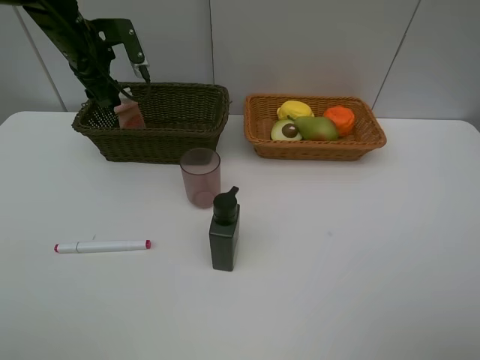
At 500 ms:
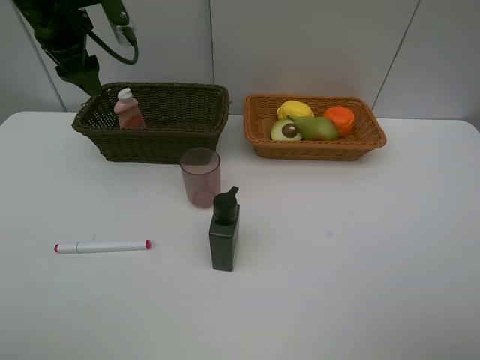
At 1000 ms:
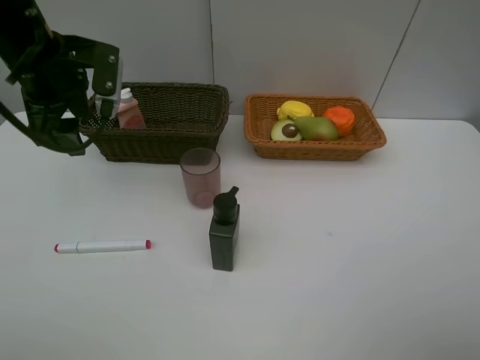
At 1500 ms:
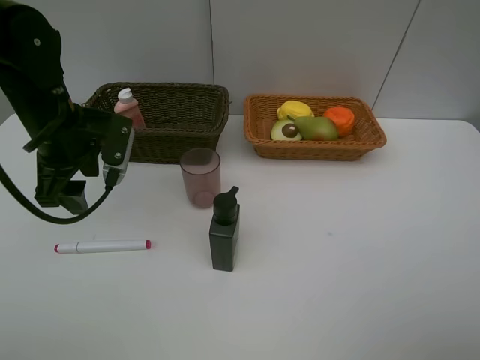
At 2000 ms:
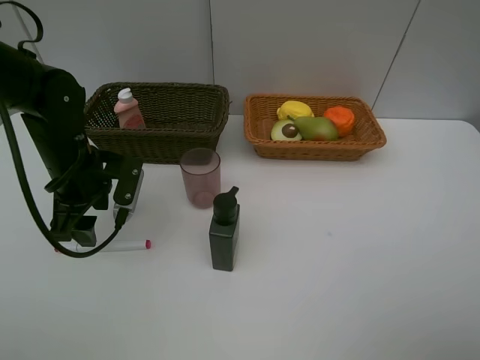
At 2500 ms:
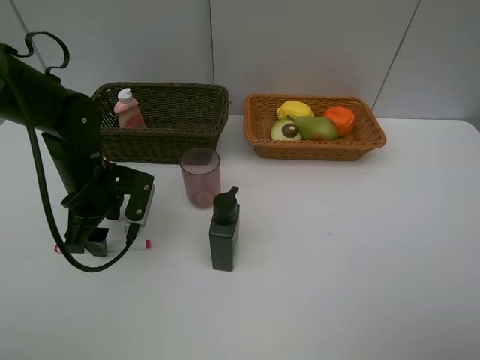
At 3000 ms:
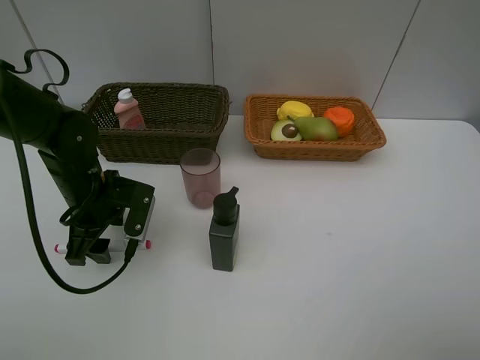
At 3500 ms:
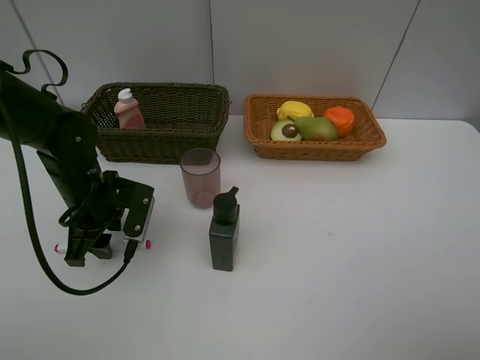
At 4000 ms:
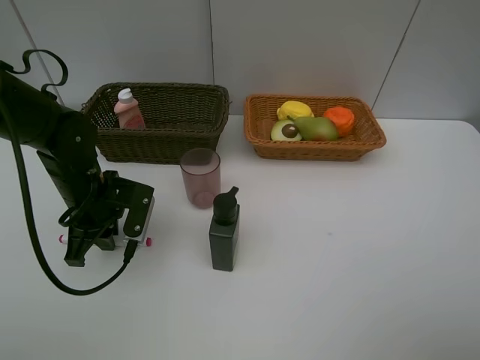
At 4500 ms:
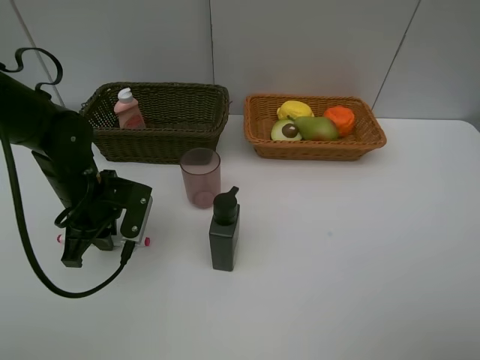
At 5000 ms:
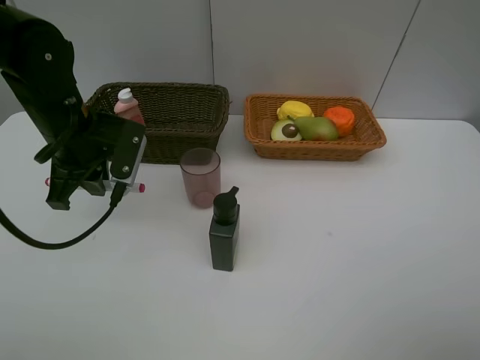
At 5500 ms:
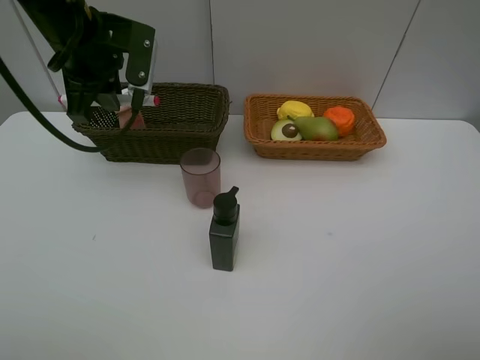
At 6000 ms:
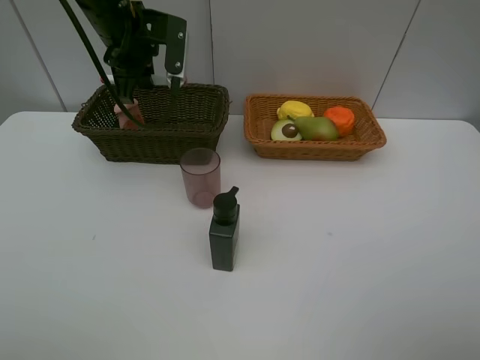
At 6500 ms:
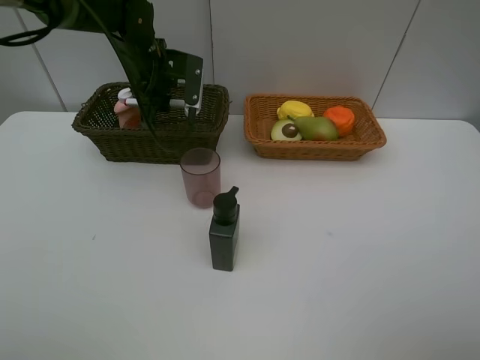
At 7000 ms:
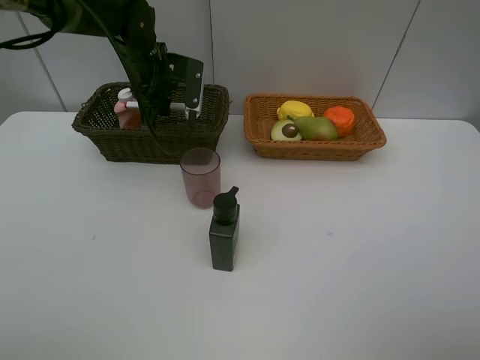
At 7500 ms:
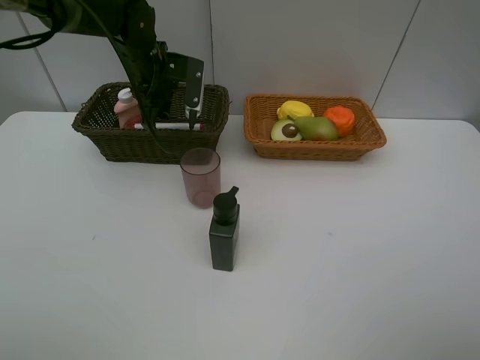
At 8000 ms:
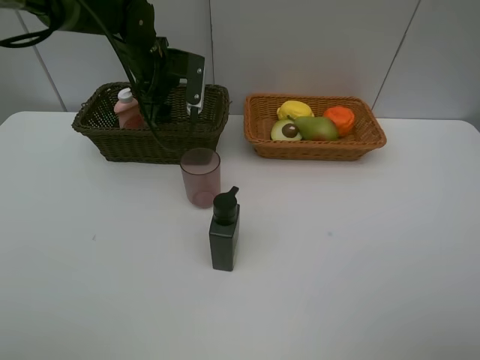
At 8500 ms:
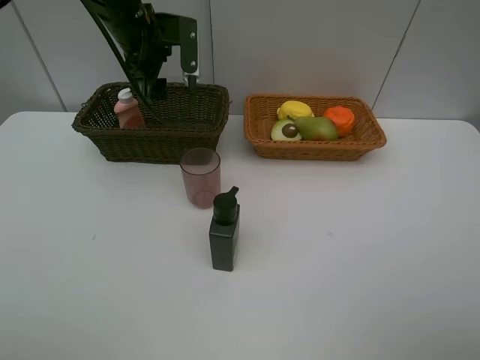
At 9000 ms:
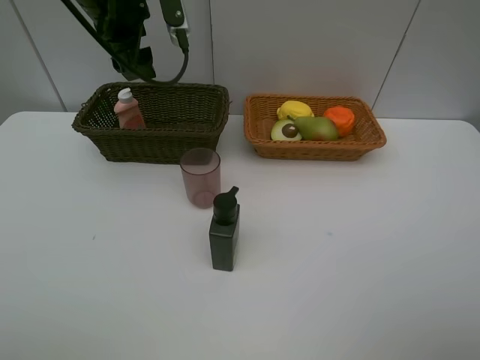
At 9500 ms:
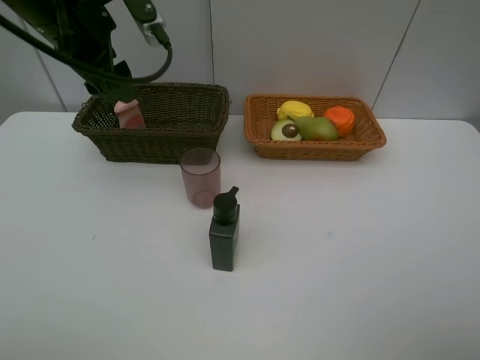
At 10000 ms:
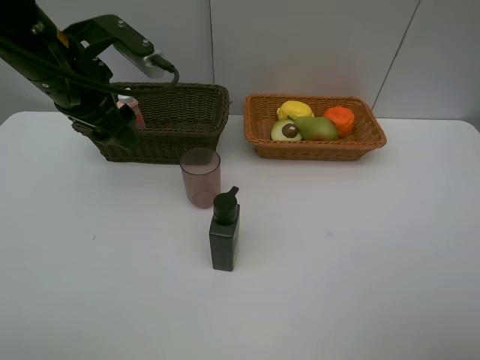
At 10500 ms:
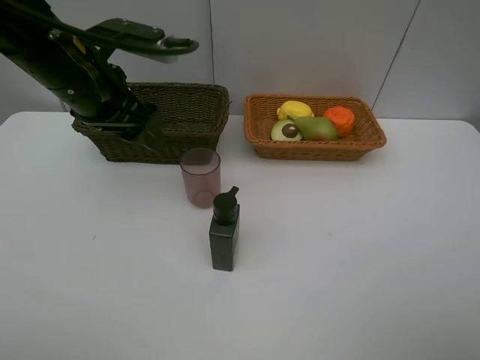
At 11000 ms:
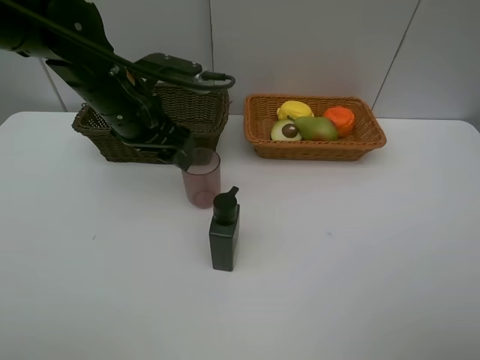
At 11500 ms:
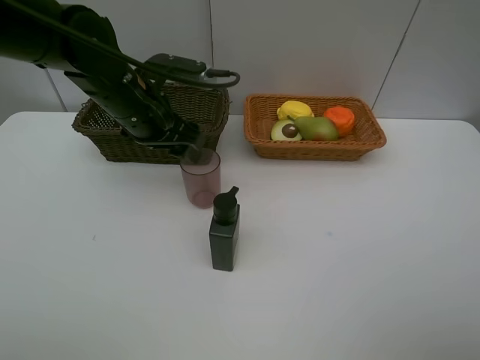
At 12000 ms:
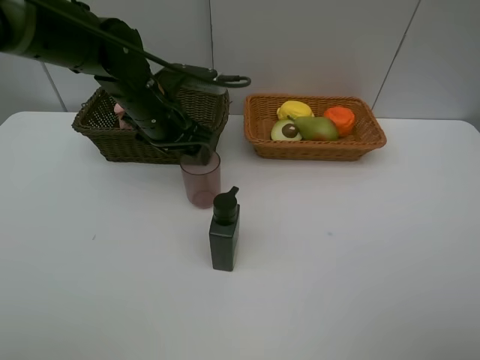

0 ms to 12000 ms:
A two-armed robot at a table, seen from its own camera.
Task of the whole recording: Place multiple objects separately in different baskets.
Step, 0 ms to 4500 ms: Pick up the red marker with left gripper.
Step, 5000 ms to 8000 ms: Place the red marker in the dark basket with left gripper.
0 ms to 2000 ms: The left gripper shifts approximately 20 cm backward and downward.
2000 ms to 4000 ms: The left gripper closes its fingers.
4000 ms to 6000 ms: The left gripper travels forward and upward by about 20 cm.
6000 ms to 8000 ms: The left gripper goes roughly 5 cm downward, and opens up.
8000 ms to 10000 ms: The left gripper heads backward and upward, covering roughly 15 cm.
10000 ms to 12000 ms: The left gripper shifts approximately 10 cm downward, to the right and forward.

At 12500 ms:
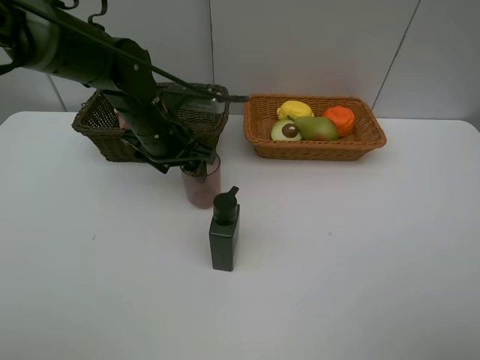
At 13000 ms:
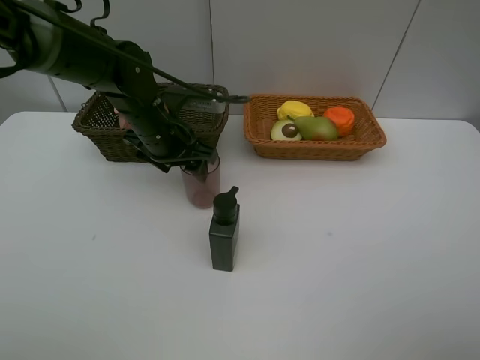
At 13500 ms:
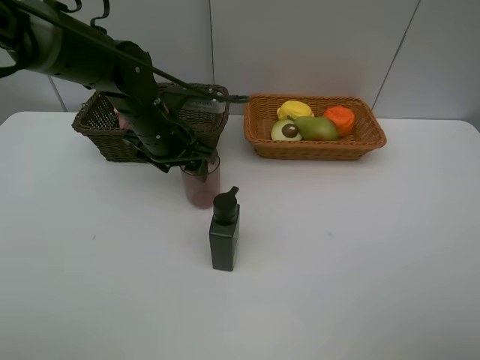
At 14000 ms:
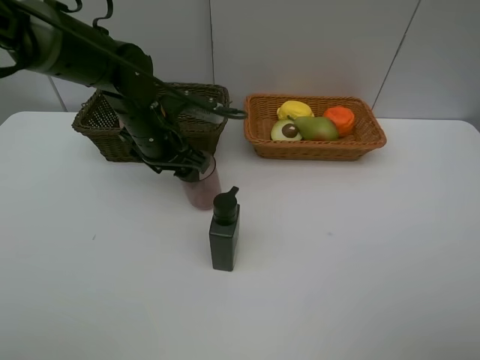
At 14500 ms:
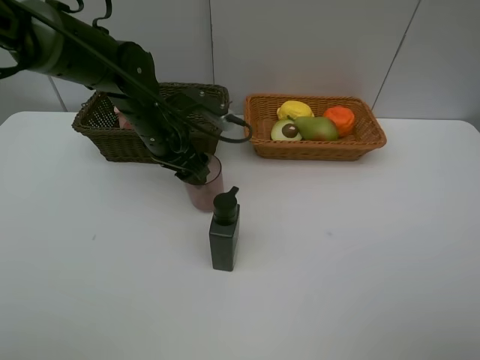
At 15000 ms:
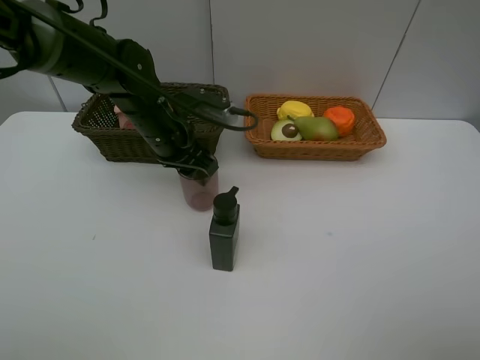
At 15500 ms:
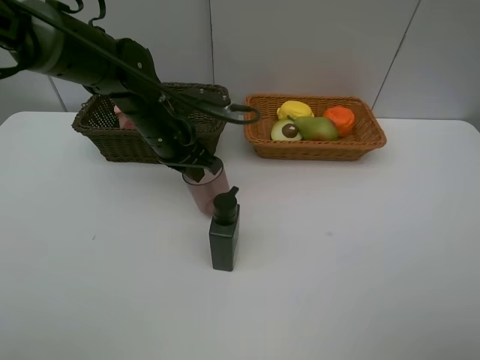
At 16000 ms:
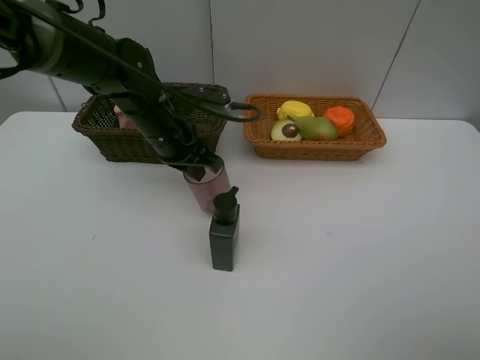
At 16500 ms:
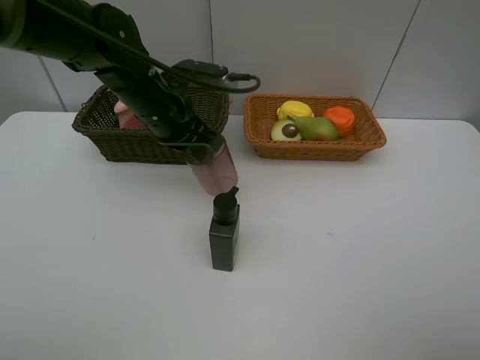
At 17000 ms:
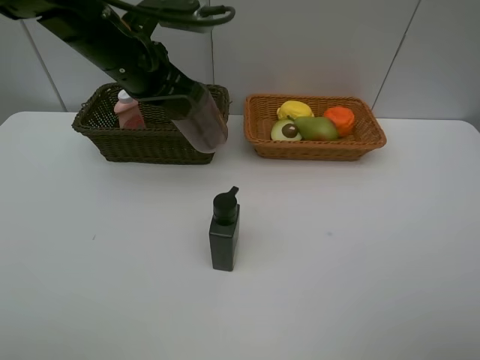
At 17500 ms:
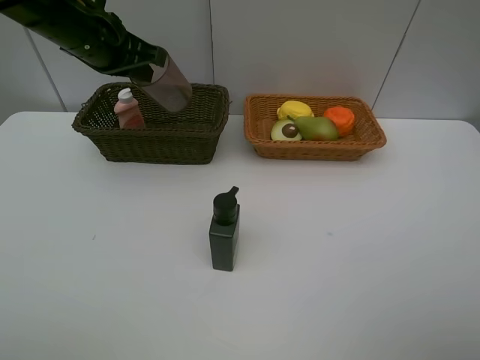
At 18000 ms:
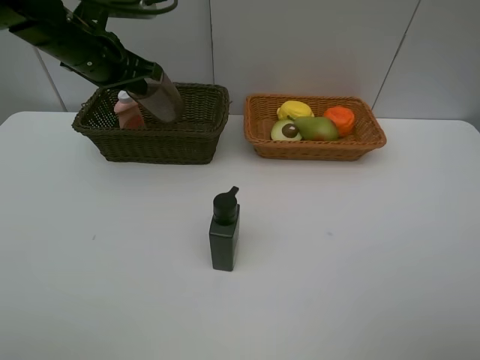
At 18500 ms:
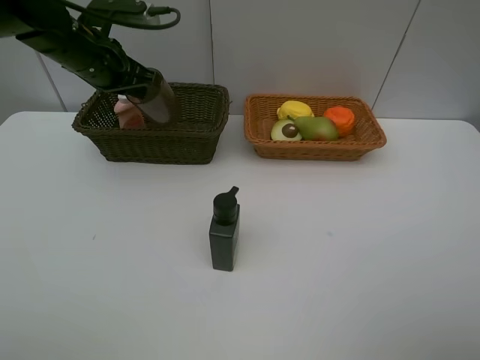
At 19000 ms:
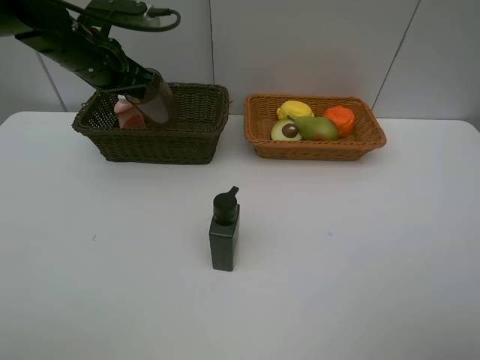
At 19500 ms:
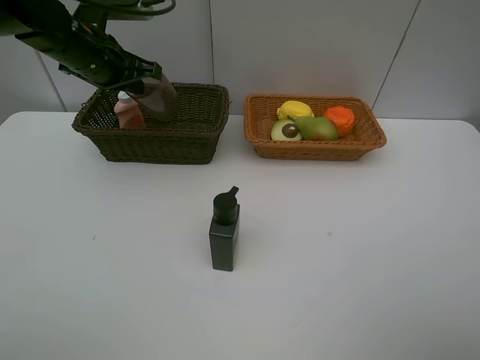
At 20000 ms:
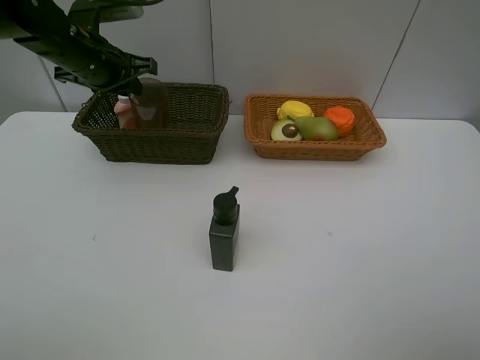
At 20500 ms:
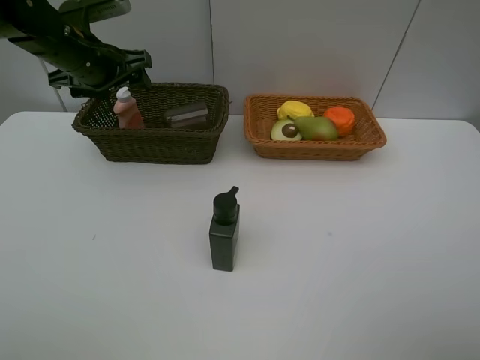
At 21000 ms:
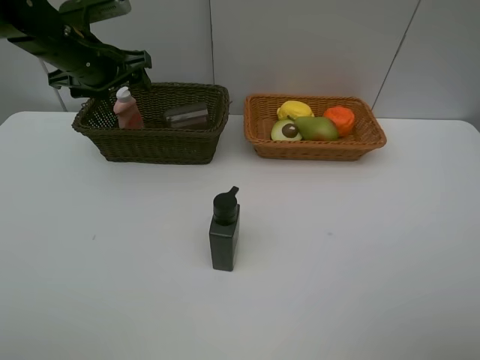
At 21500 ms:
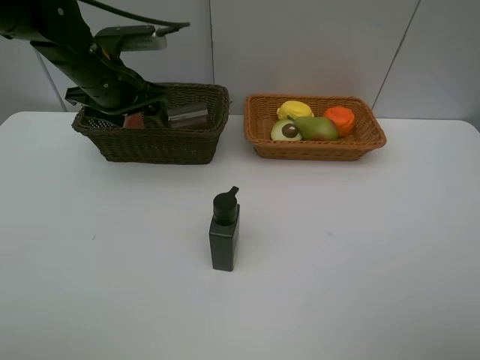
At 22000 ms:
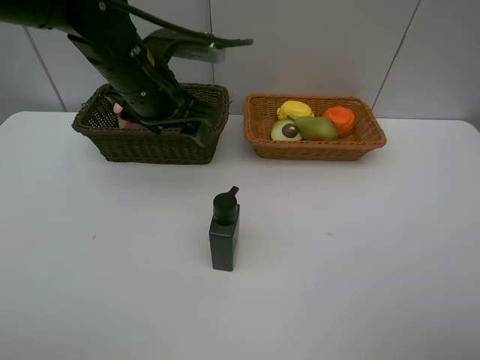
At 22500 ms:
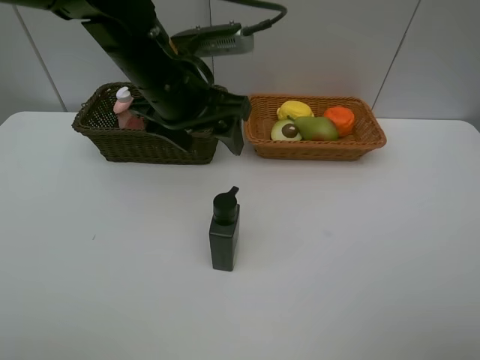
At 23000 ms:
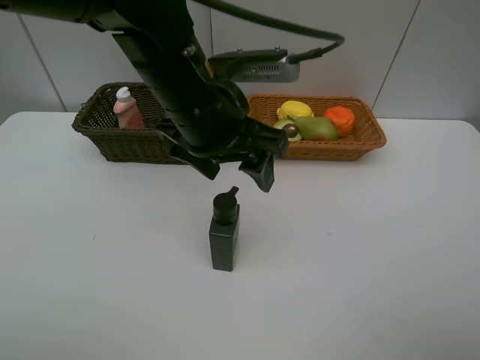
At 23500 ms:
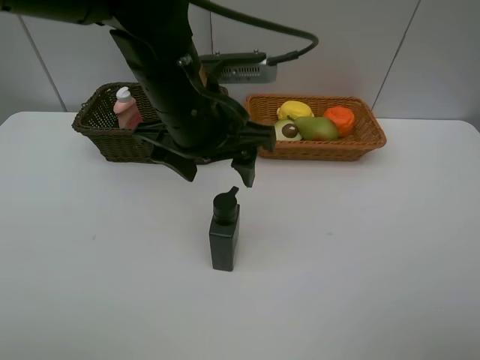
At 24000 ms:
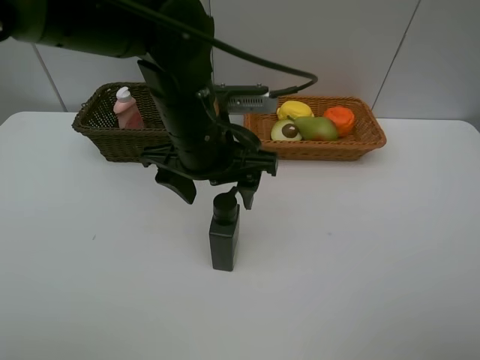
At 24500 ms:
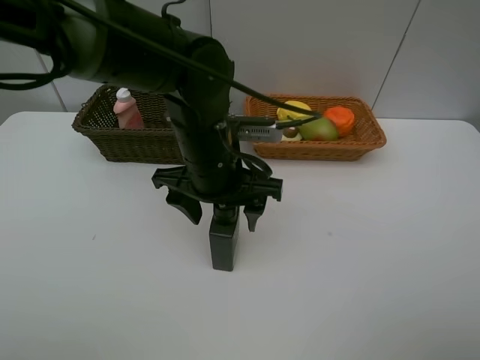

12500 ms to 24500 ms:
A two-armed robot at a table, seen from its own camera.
Task of the whole recording: Place multiple objects separately in different baskets.
Step, 12500 ms to 16500 ms: Pick up the red cup with left gripper.
Step, 17000 ms to 20500 ms: Place the red cup in the dark basket with left gripper.
14500 ms to 16500 ms: The left gripper closes up.
16500 ms to 18500 ms: The left gripper heads to the left and forward, covering about 10 cm.
18500 ms to 20500 ms: The left gripper opens up.
20500 ms to 22500 ms: The left gripper heads to the right and backward, covering roughly 20 cm.
22500 ms to 24500 ms: The left gripper is displaced downward by about 5 cm.

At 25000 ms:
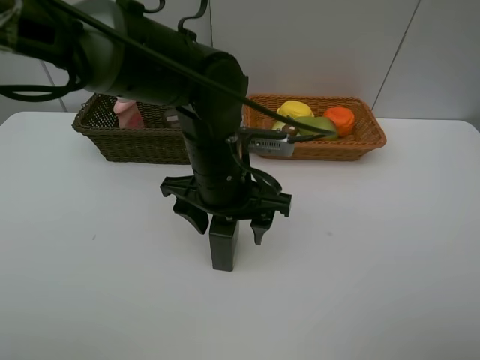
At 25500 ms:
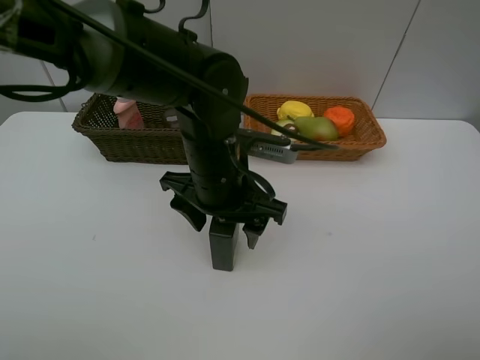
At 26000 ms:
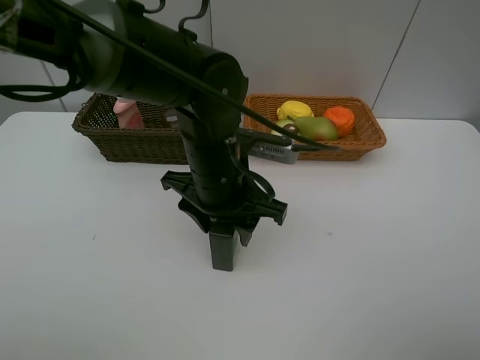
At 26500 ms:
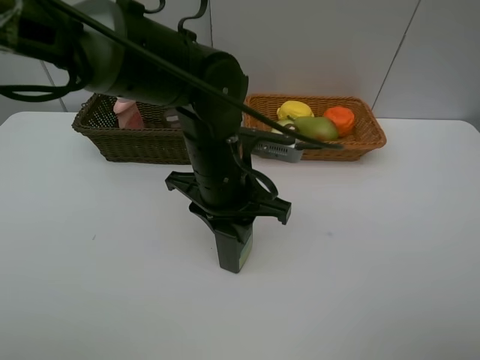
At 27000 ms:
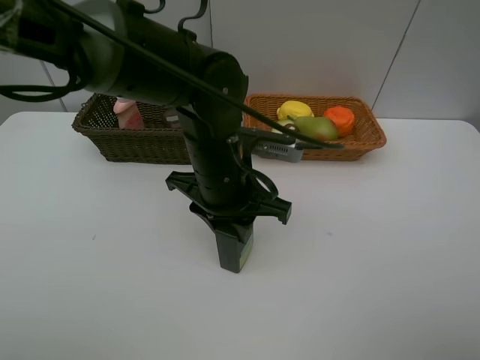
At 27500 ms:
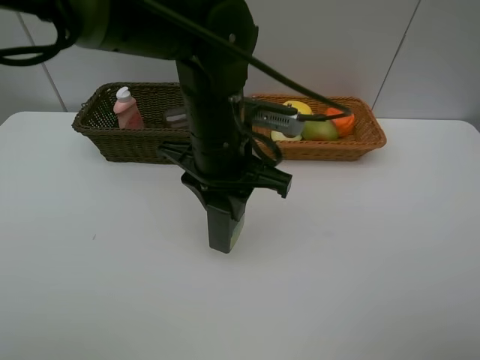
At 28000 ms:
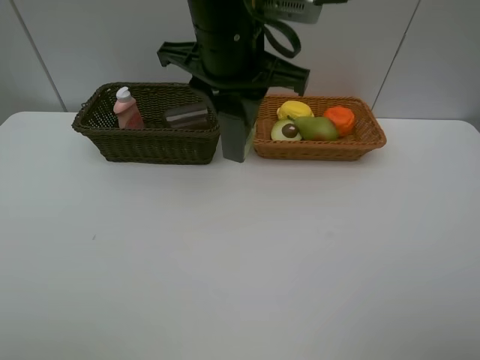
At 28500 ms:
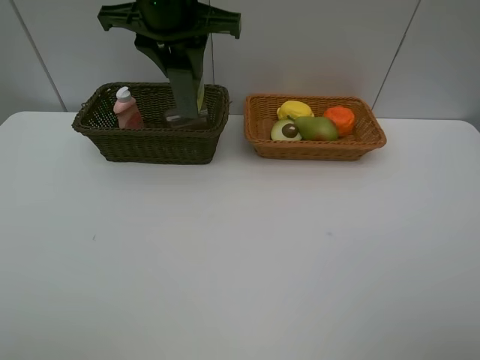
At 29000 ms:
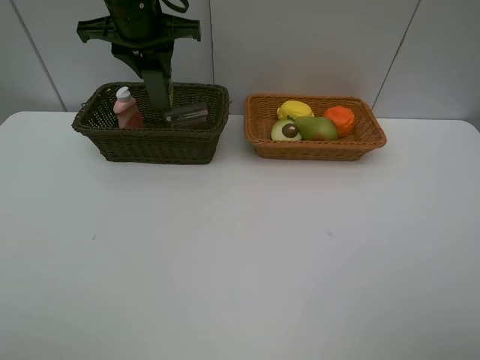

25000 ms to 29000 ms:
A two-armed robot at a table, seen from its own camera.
Task of the whole recording: Place multiple objects separately in different baskets.
Step, 25000 ms to 27000 ms: Pick up the hard facial cleanser with left gripper.
25000 ms to 27000 ms: The left gripper closes its fingers.
27000 ms to 29000 ms: The left gripper moves forward, upward and to the left, about 25 cm.
